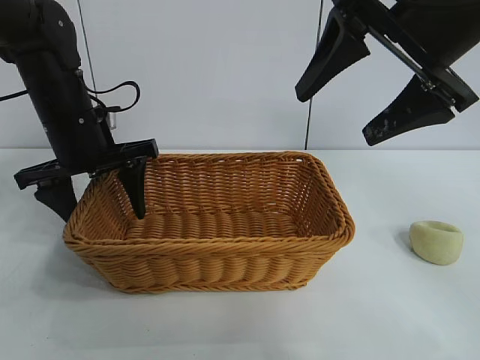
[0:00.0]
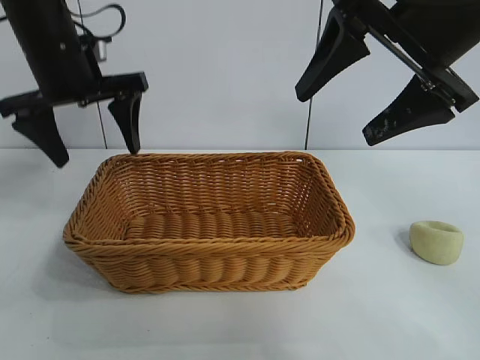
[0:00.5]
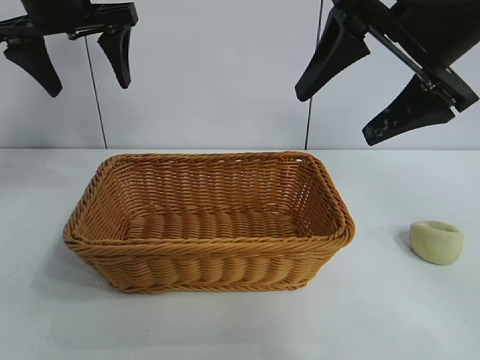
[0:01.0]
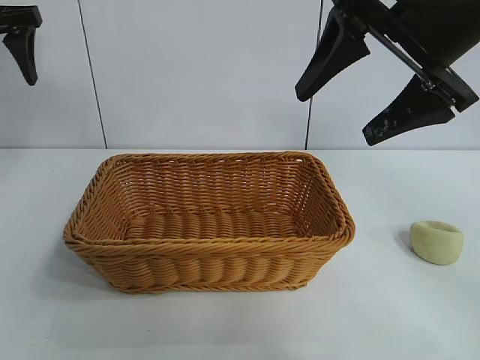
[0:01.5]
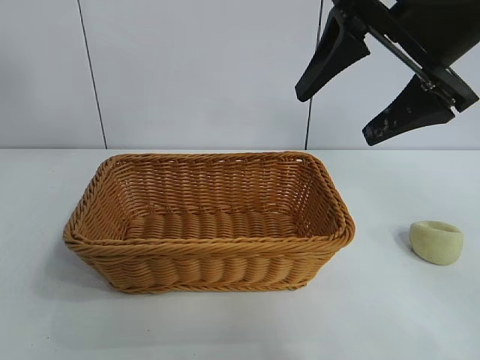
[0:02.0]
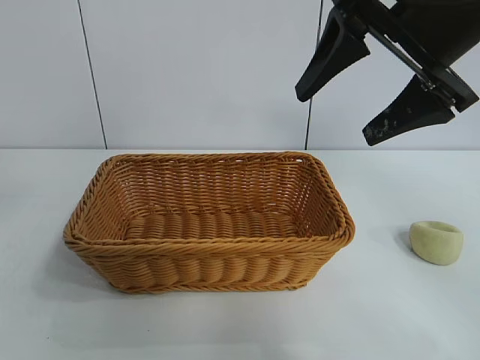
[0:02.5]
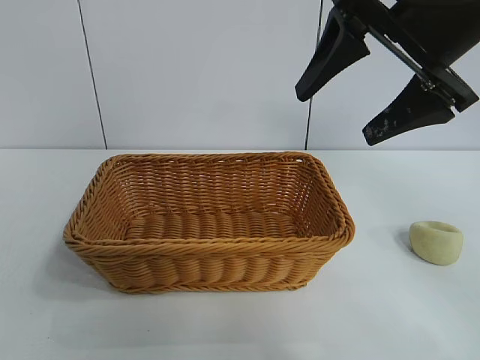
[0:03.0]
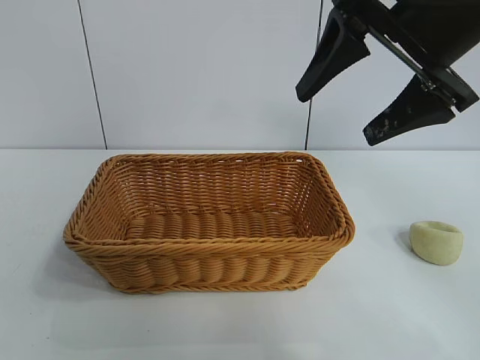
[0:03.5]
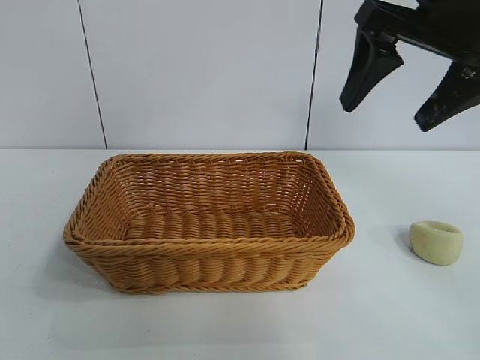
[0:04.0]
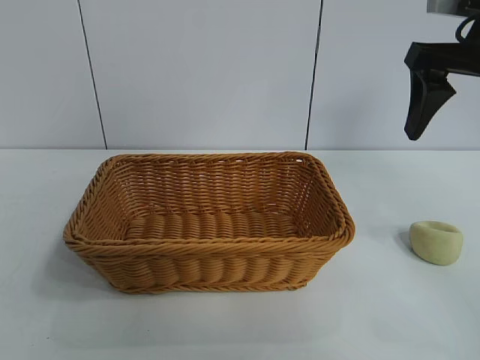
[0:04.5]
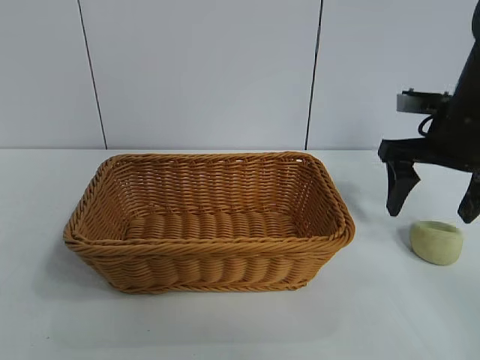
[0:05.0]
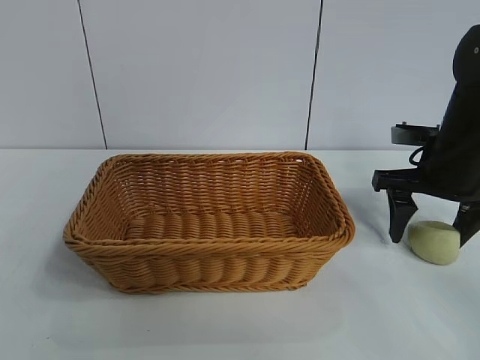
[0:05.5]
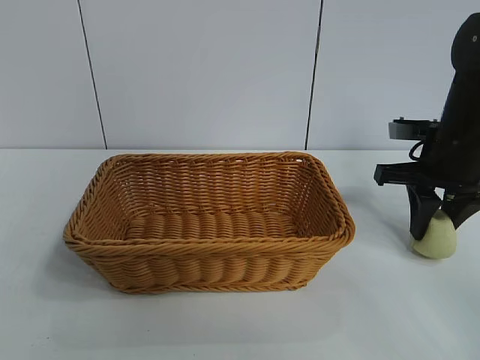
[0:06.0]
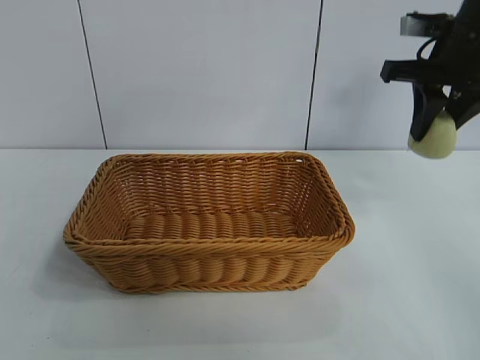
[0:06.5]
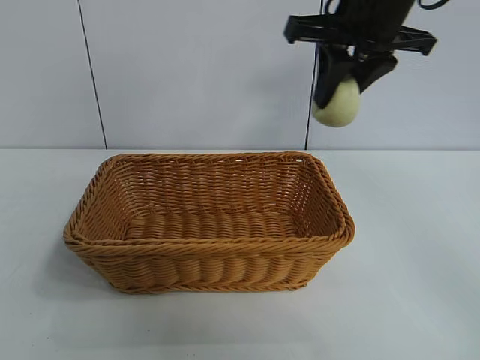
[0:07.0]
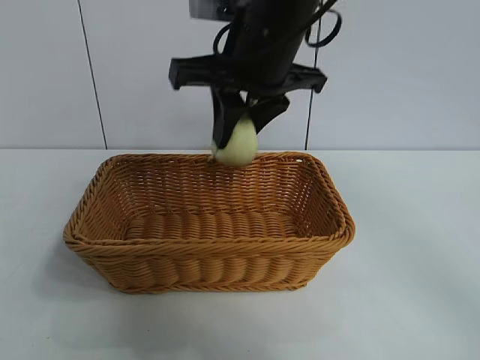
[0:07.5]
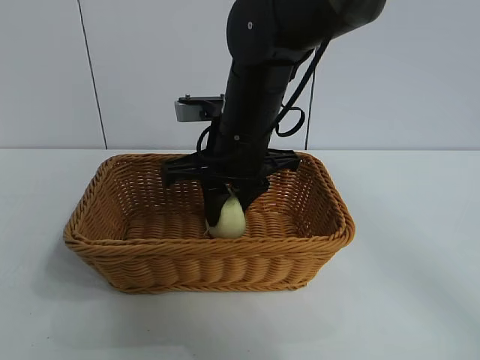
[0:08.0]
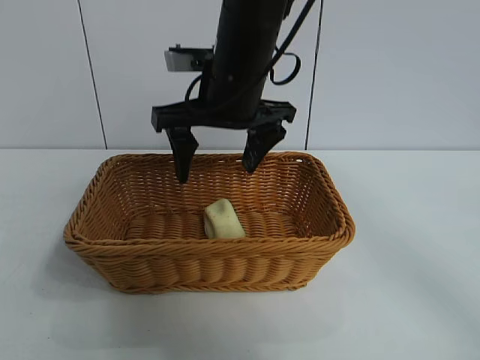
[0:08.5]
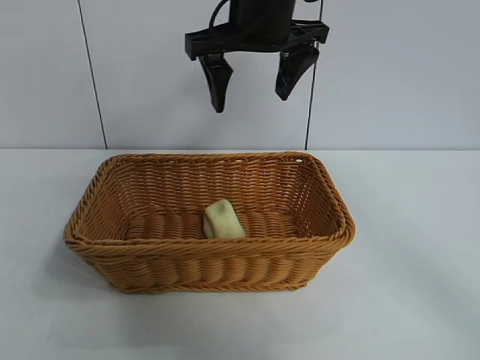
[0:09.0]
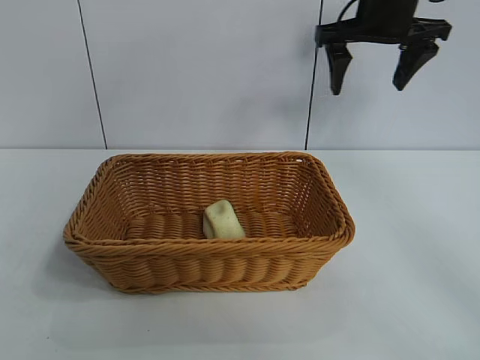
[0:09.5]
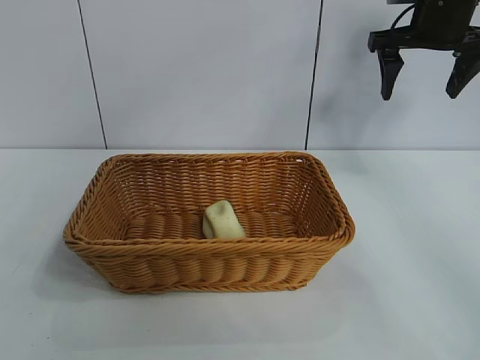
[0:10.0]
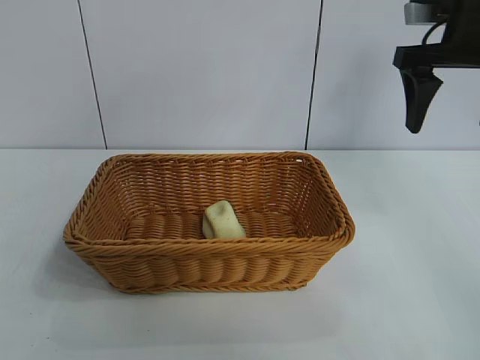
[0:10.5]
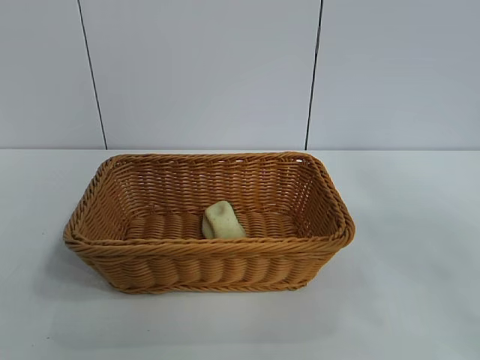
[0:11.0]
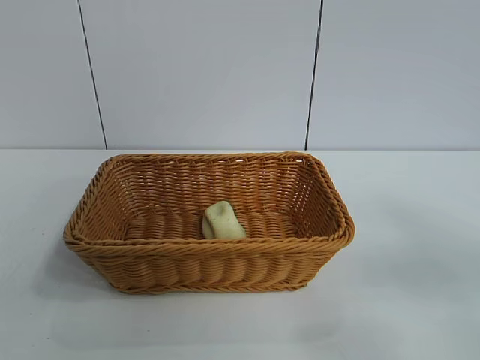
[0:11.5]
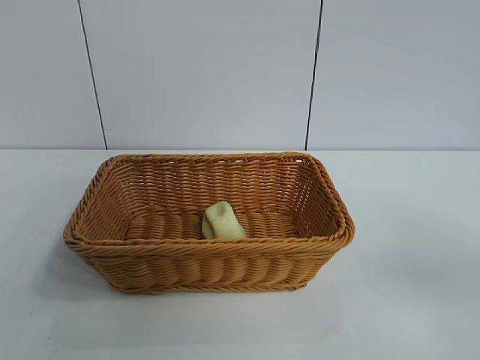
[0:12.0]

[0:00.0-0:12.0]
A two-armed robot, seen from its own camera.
Task of the whole recording: pick up the egg yolk pastry and put it into the basket.
Step, 0:00.0 to 0:05.5: Grasp egg yolk pastry with right gripper.
Step, 0:06.0 to 0:08.0: Place the egg yolk pastry in the basket with right gripper.

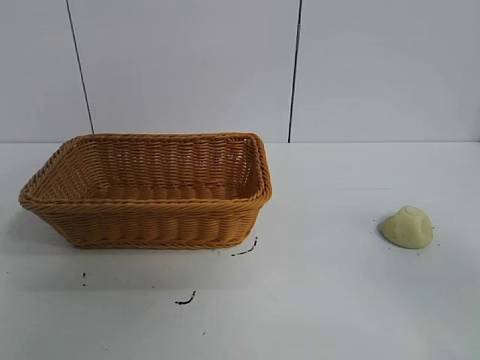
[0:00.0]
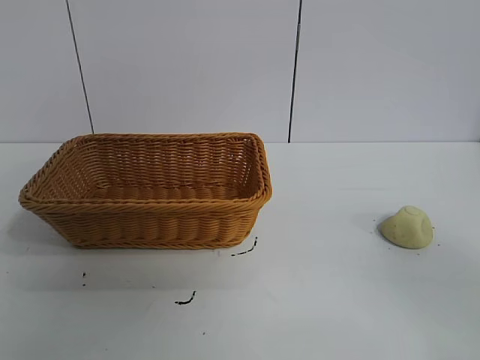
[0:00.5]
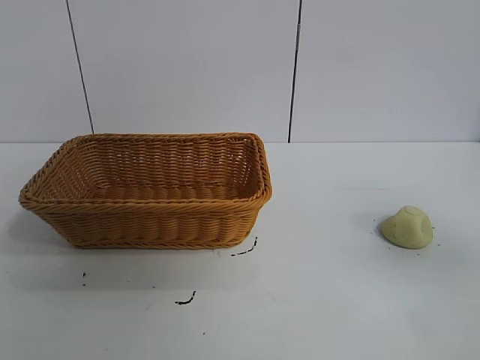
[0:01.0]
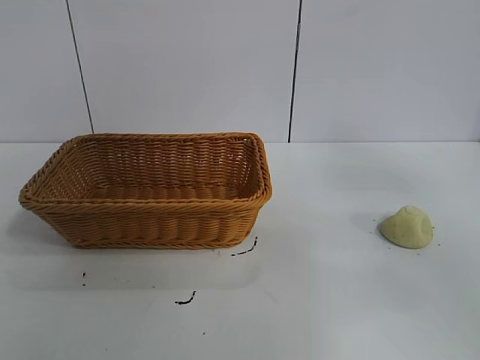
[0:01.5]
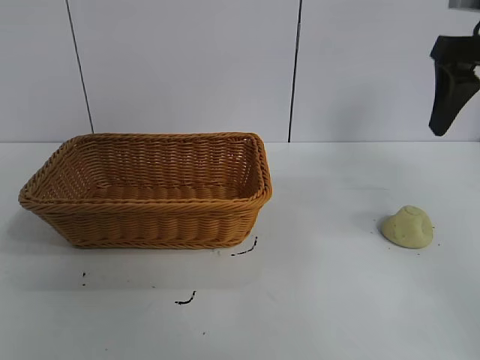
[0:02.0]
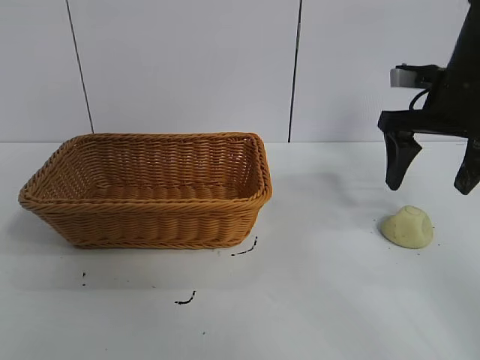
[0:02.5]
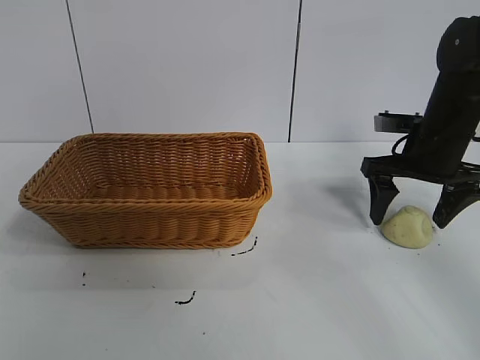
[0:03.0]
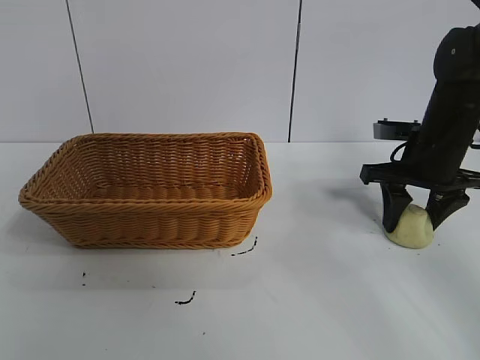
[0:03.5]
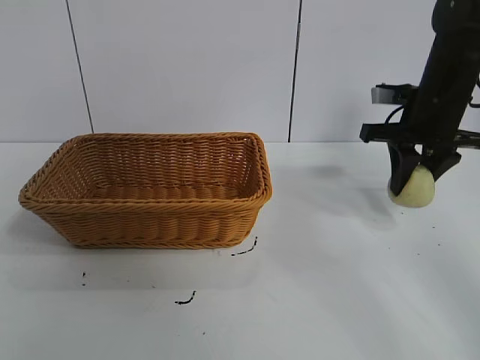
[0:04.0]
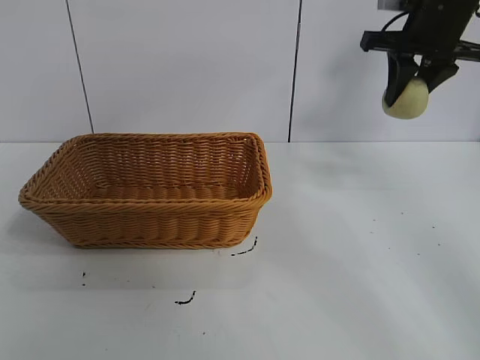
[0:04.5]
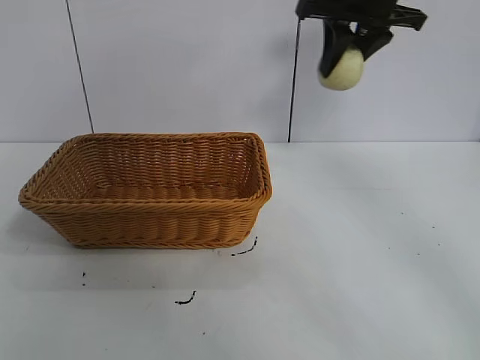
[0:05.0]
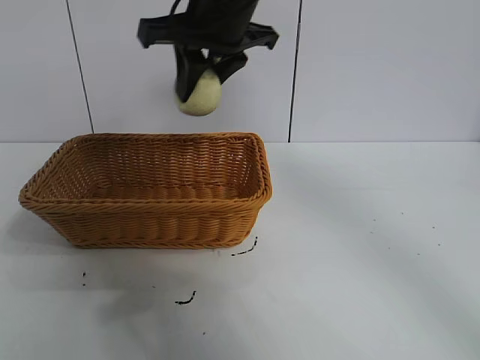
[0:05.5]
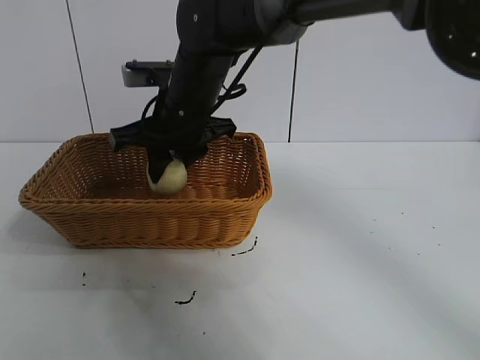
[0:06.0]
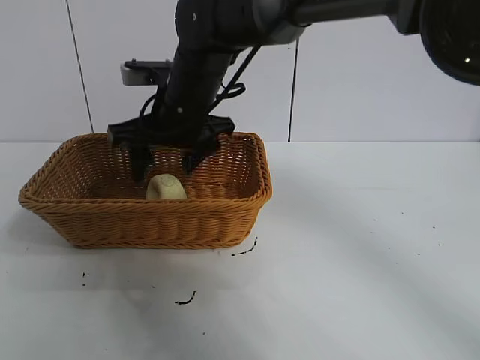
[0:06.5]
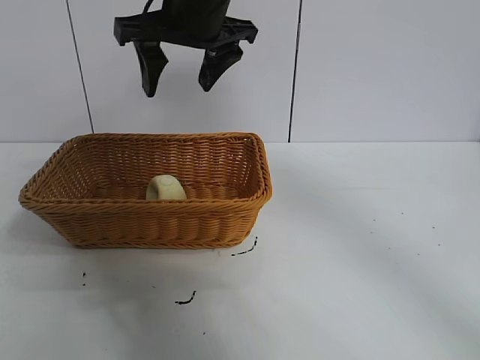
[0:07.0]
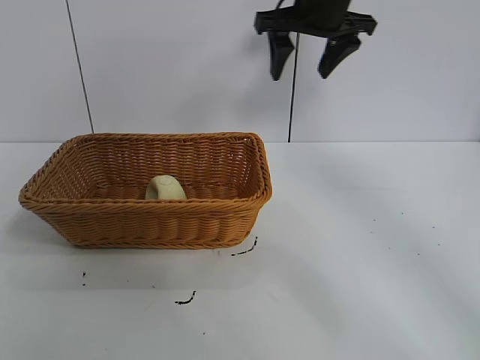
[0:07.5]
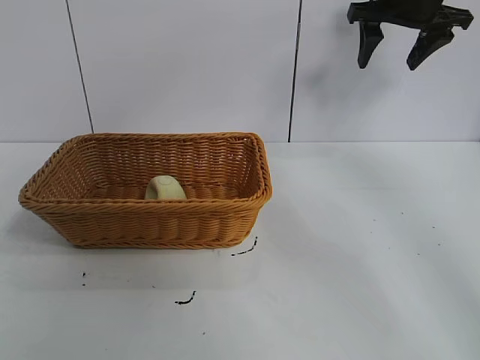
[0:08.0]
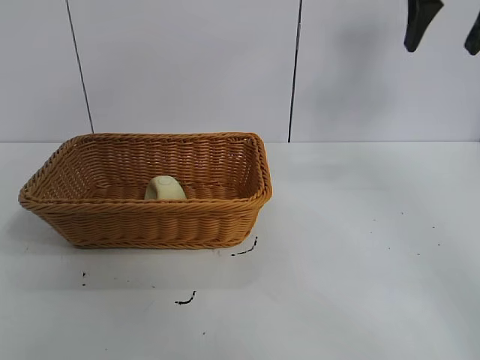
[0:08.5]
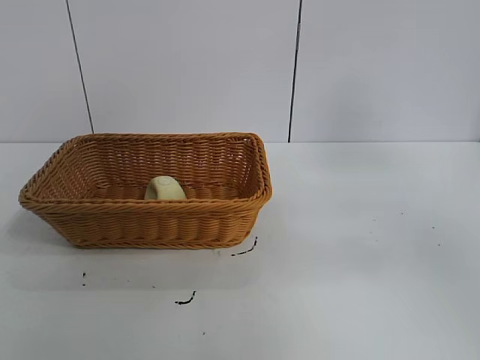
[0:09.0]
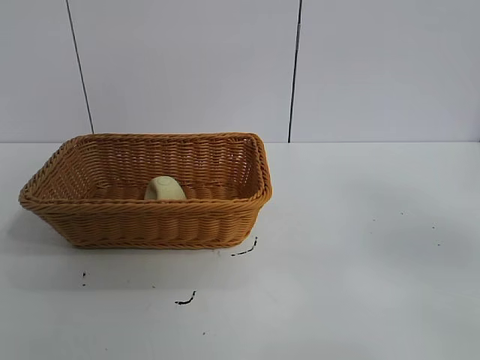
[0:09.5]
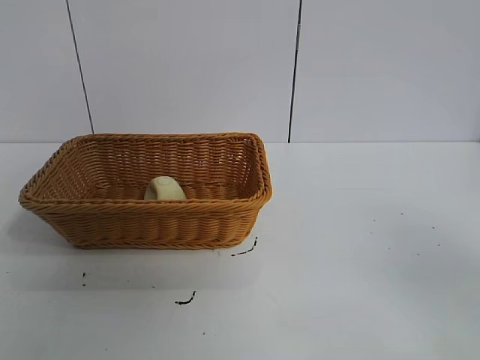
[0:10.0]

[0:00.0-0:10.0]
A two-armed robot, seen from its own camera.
Task of the whole recording: pick up the egg yolk pastry and put it into the basket.
Step, 0:01.0 to 0:03.5: Grasp egg yolk pastry with right gripper.
Step, 0:04.0 to 0:06.5: Place the egg yolk pastry in the basket with right gripper.

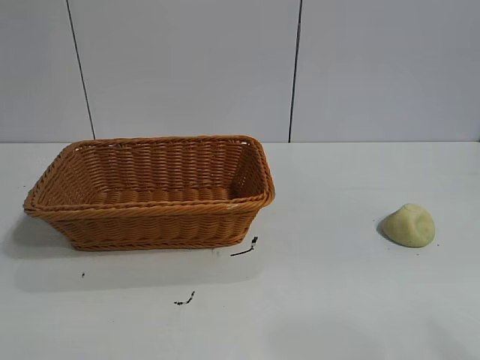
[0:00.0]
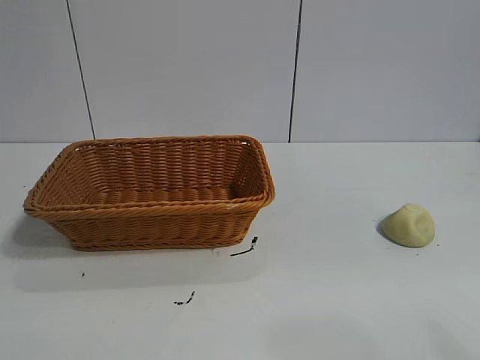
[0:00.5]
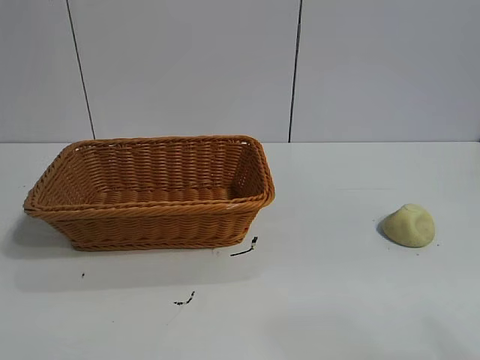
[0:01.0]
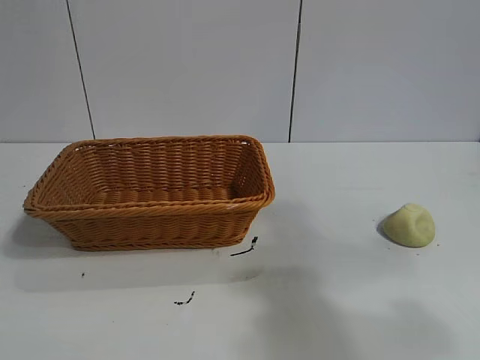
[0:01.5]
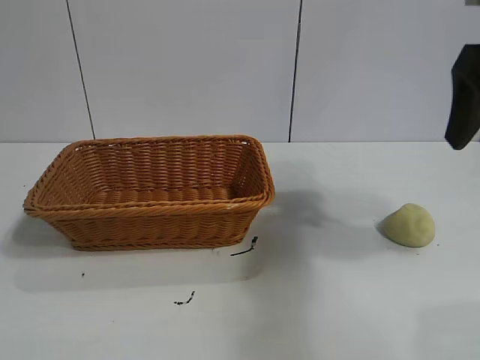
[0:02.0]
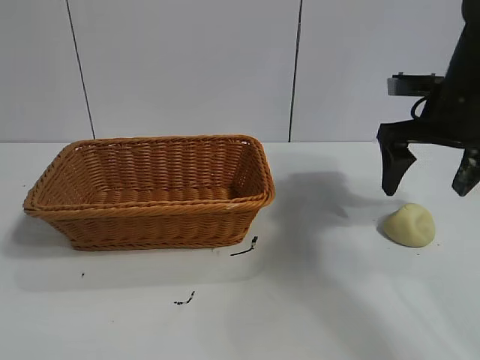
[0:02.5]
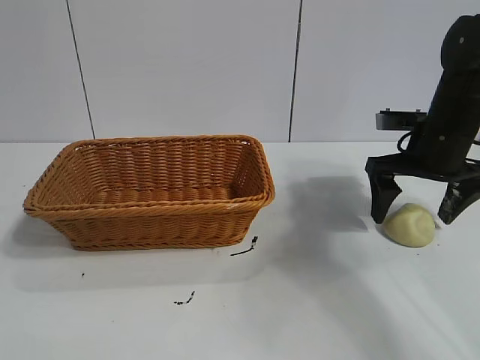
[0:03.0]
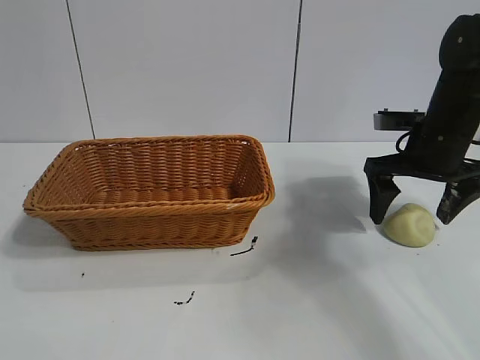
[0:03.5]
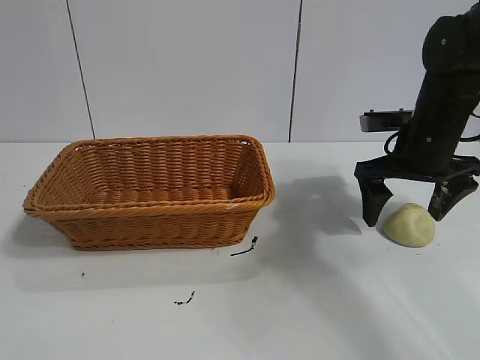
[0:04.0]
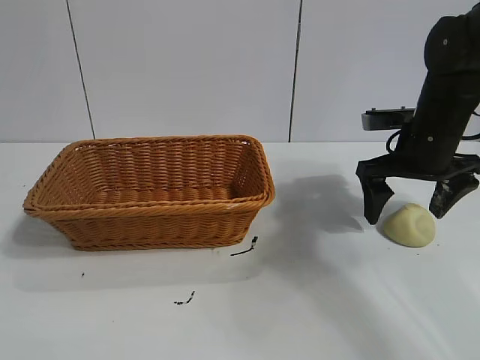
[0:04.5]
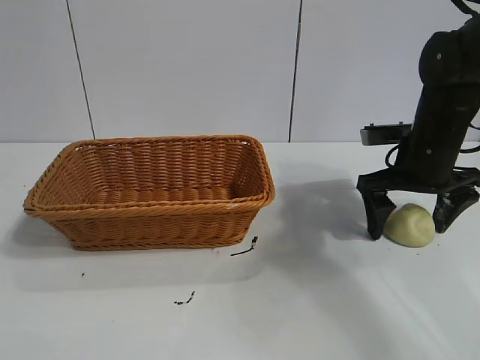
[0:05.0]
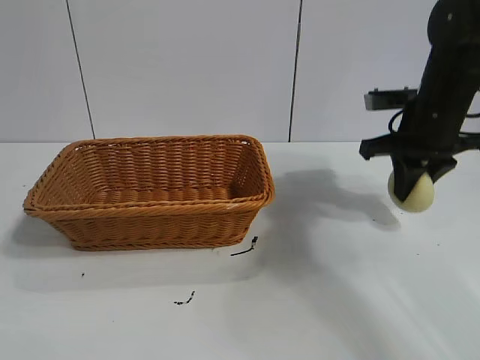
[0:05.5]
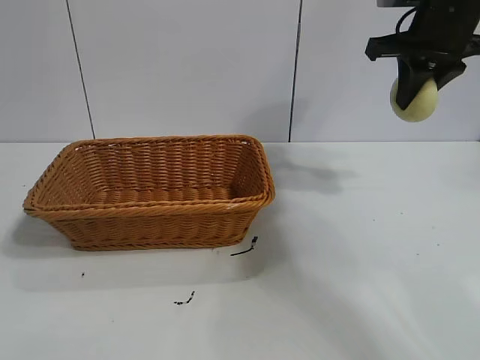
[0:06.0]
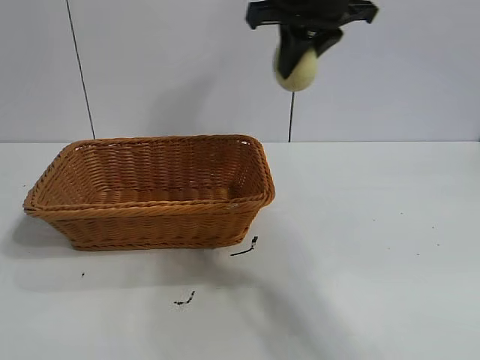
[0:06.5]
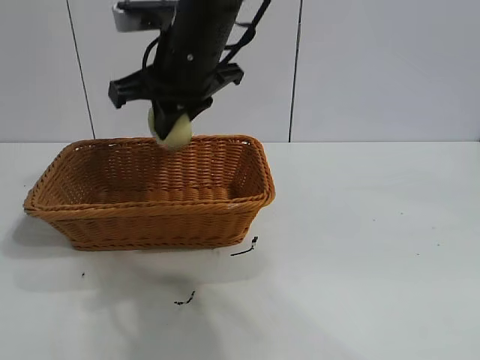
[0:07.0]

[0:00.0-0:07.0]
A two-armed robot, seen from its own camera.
Task of the whole recording: pick up the egg yolk pastry and put it into the basket.
Step, 0:01.0 to 0:05.0: Grasp egg yolk pastry with right gripper.
